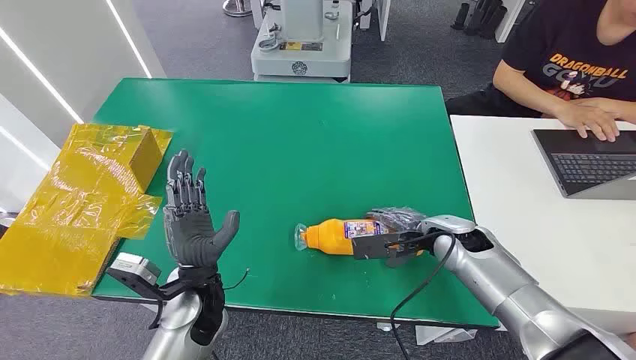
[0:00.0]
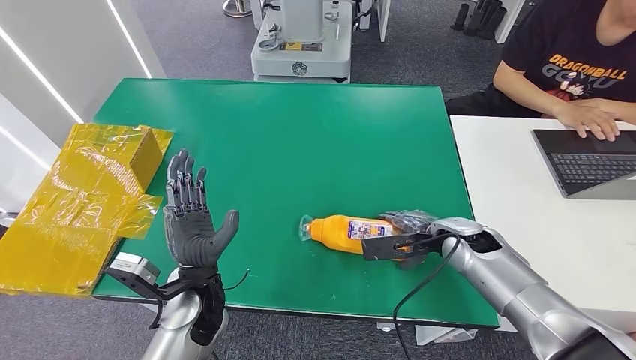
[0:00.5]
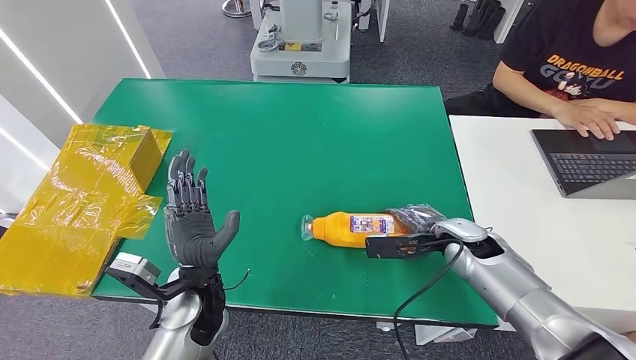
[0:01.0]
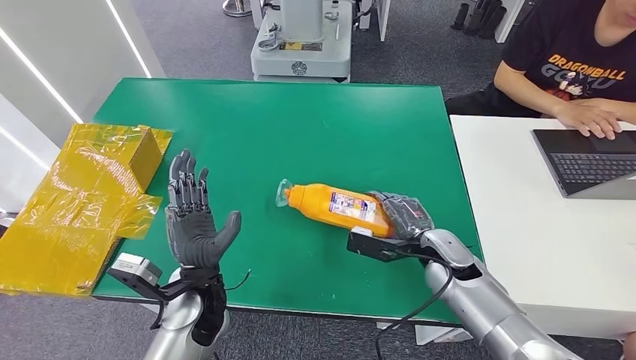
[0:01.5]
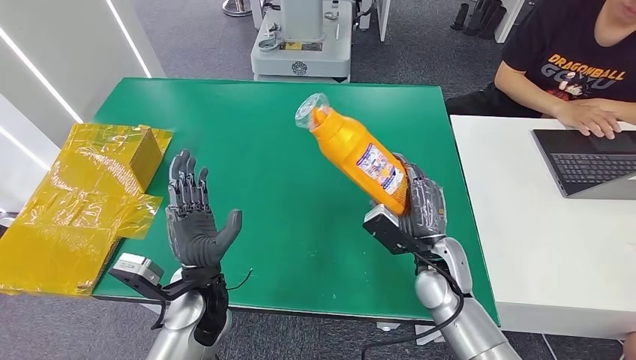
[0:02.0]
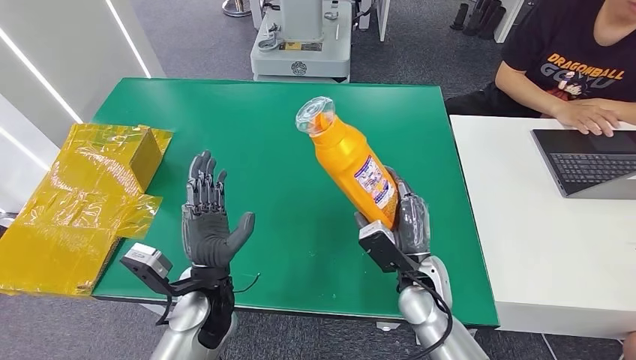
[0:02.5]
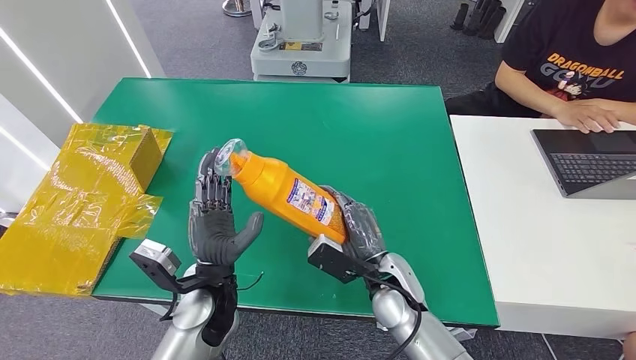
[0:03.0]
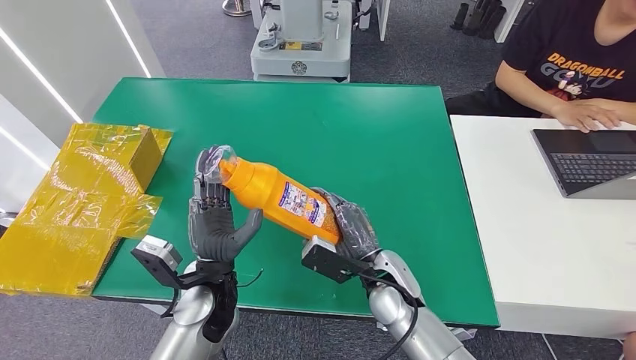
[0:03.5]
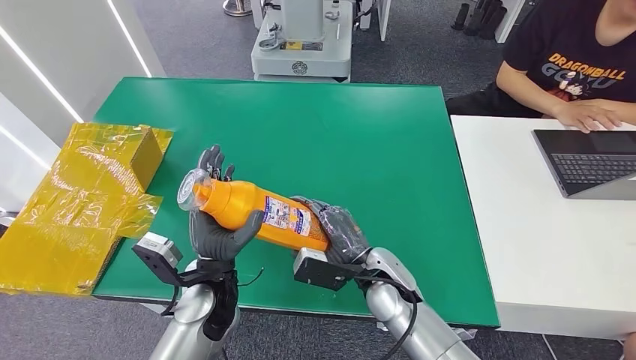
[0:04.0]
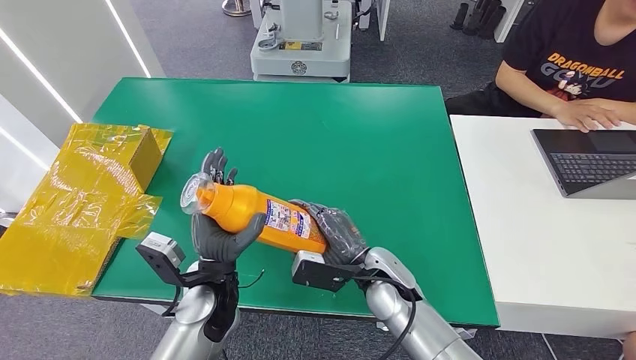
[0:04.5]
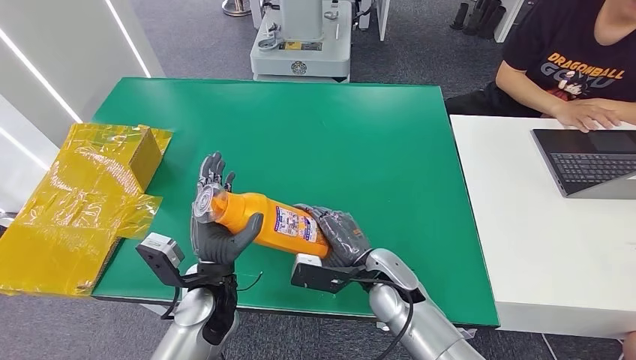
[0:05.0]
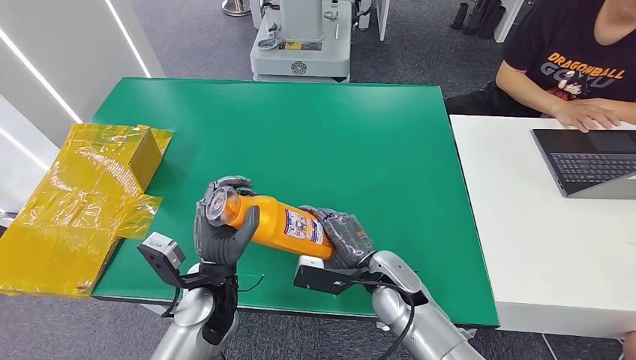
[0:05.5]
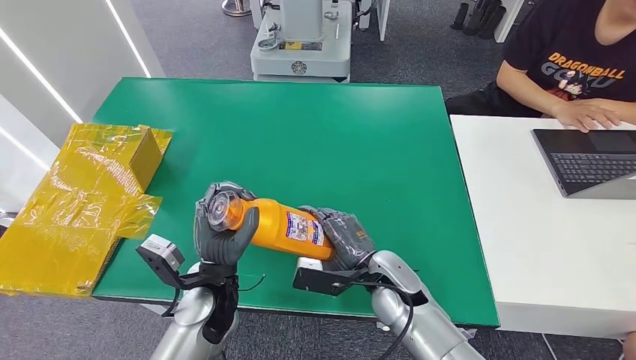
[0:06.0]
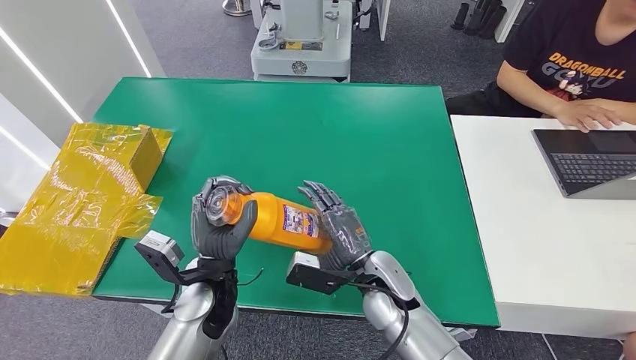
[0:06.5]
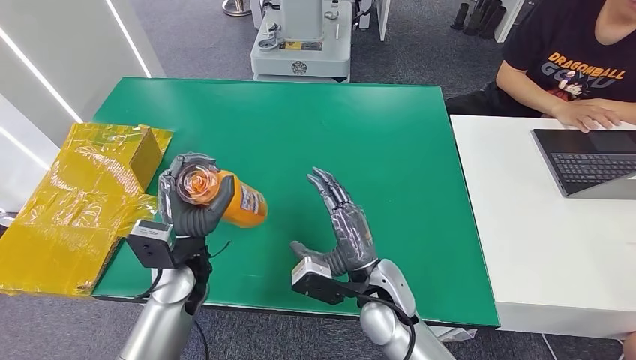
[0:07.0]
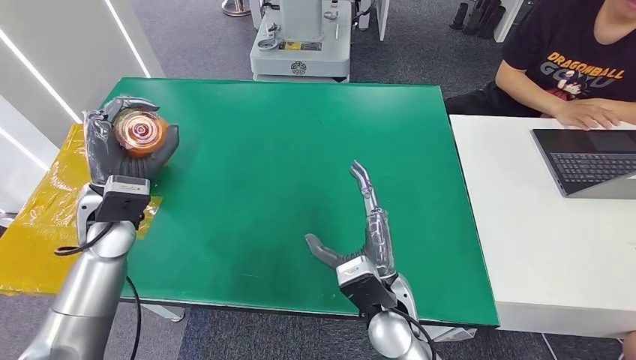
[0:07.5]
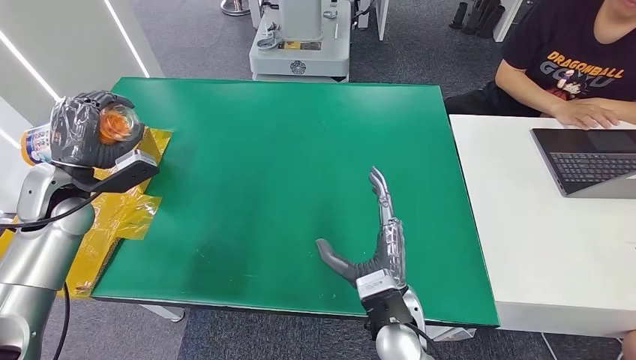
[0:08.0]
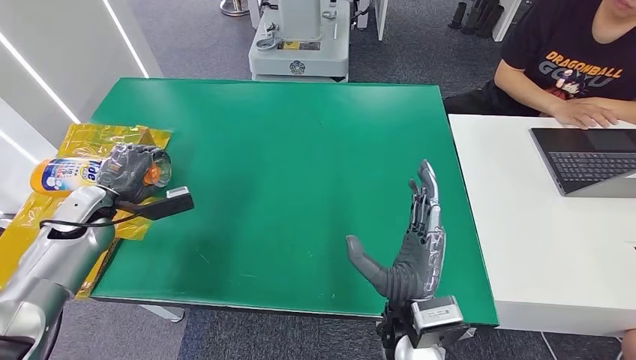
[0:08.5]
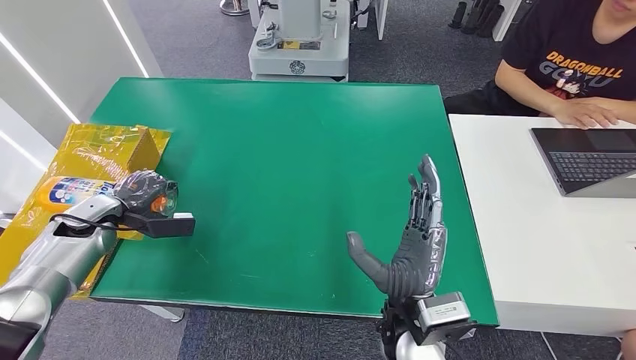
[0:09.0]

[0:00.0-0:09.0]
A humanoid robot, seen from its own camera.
Step, 0:00.0 to 0:04.0: Pick up the bottle from the table.
Step, 0:04.5 to 0:09.0: Turn the bottle to the front side.
0:02.0 to 0:04.5: The right hand goes roughly 10 cm to the left.
0:04.5 to 0:07.0: The left hand is displaced to the left by roughly 5 cm.
